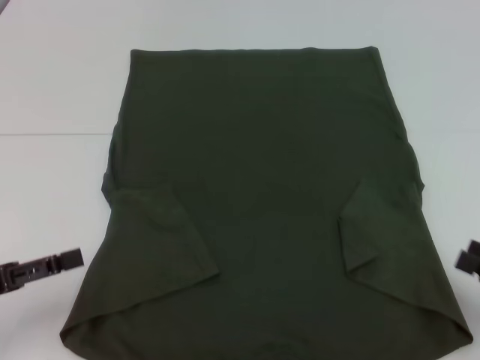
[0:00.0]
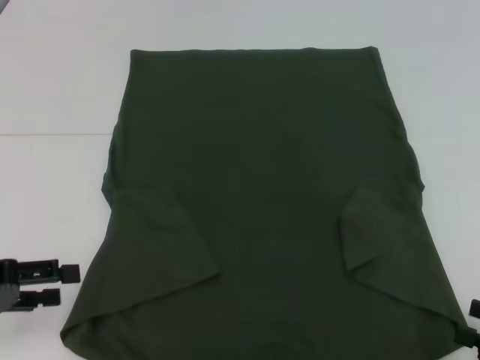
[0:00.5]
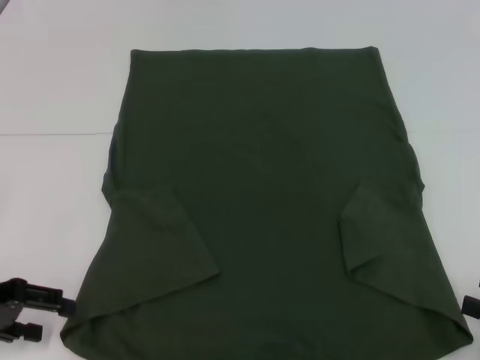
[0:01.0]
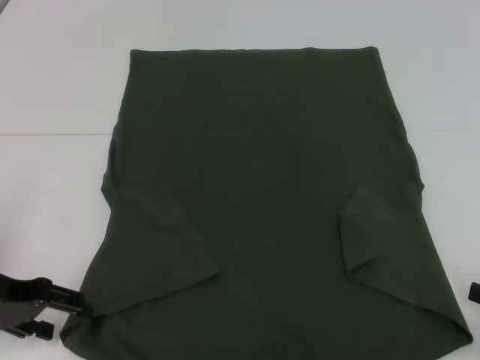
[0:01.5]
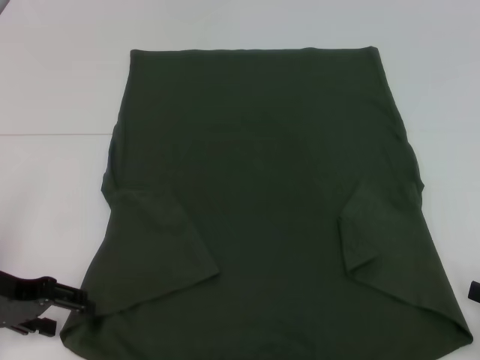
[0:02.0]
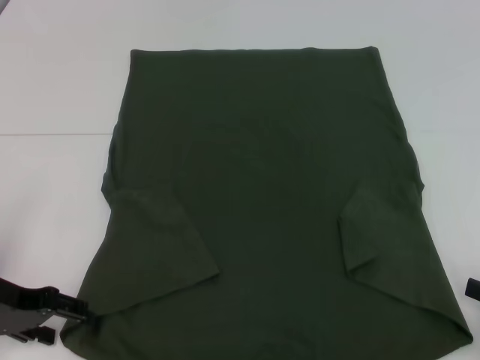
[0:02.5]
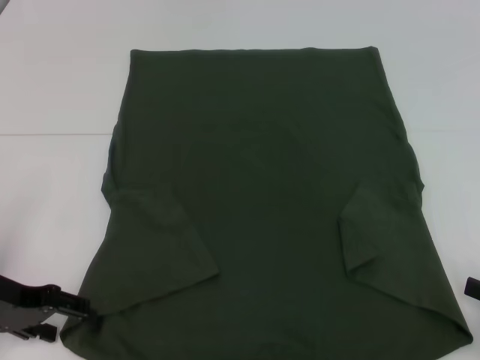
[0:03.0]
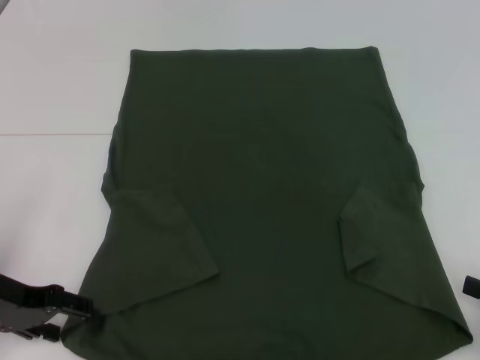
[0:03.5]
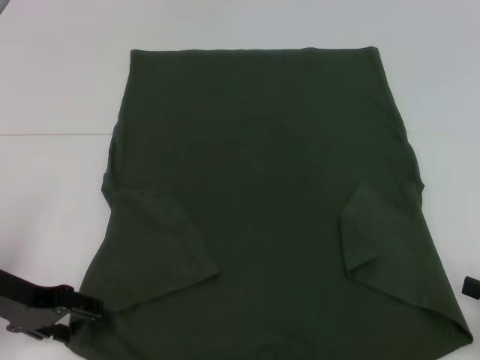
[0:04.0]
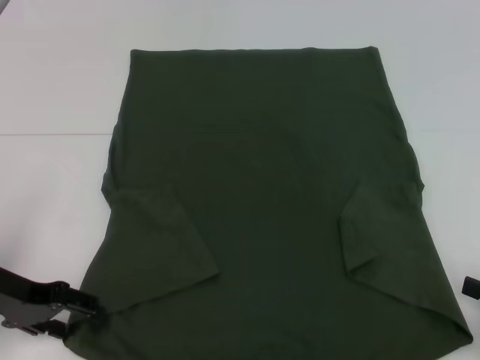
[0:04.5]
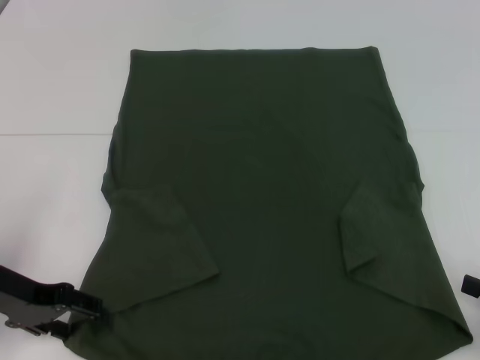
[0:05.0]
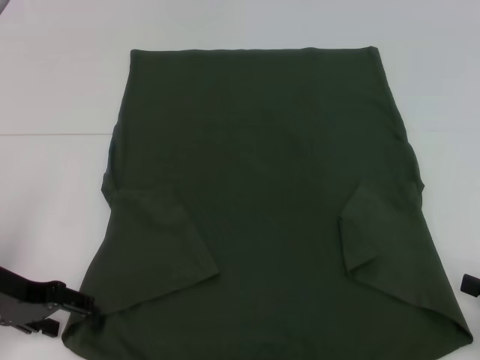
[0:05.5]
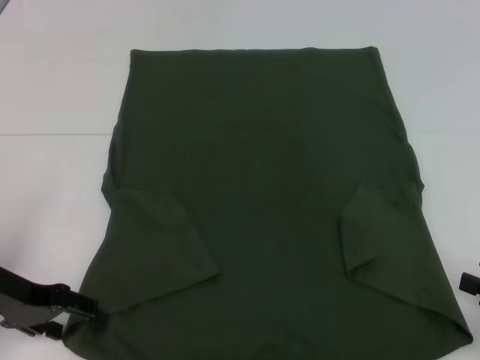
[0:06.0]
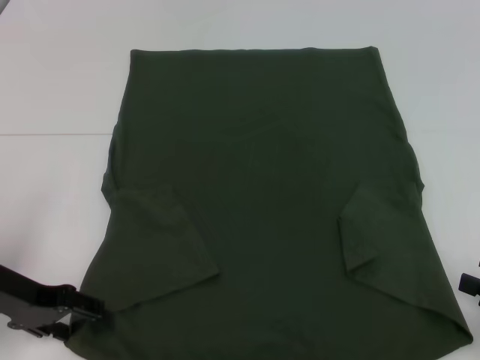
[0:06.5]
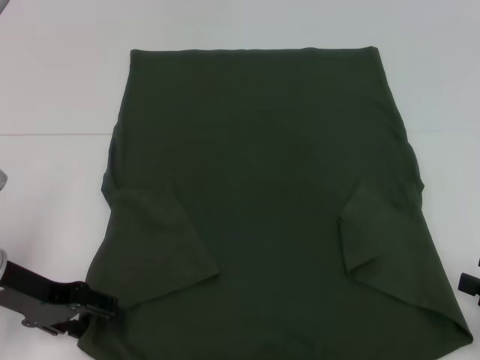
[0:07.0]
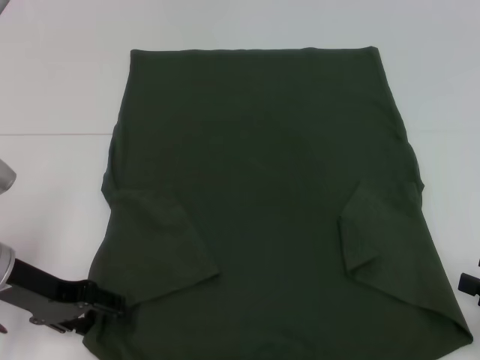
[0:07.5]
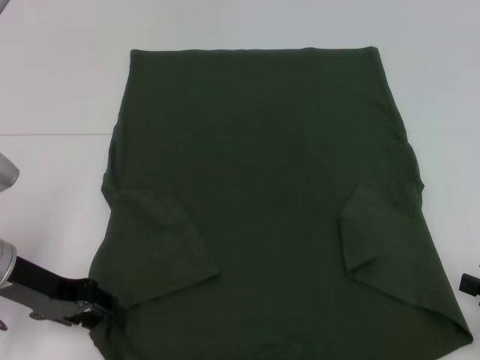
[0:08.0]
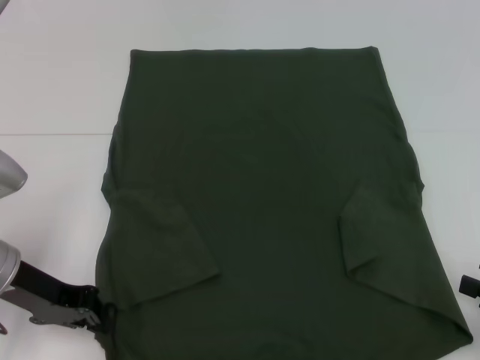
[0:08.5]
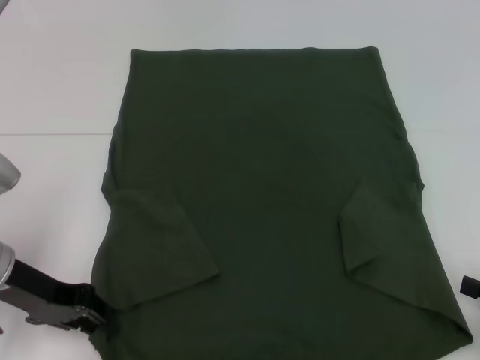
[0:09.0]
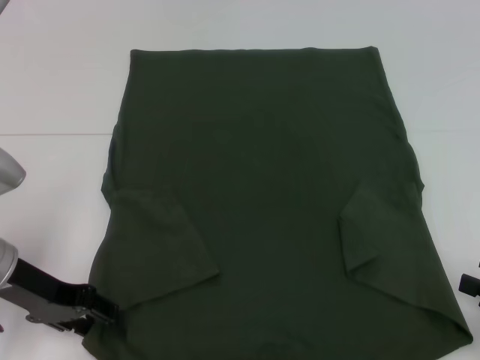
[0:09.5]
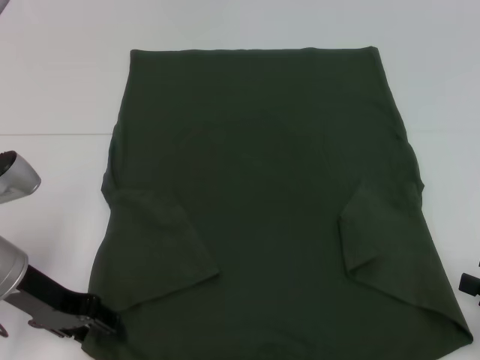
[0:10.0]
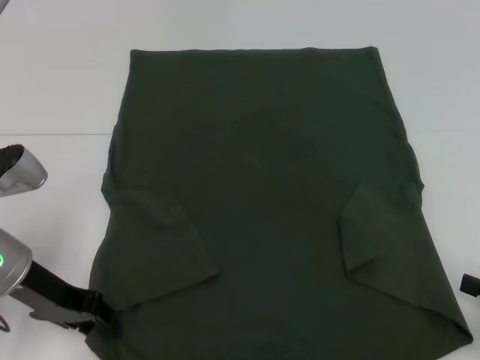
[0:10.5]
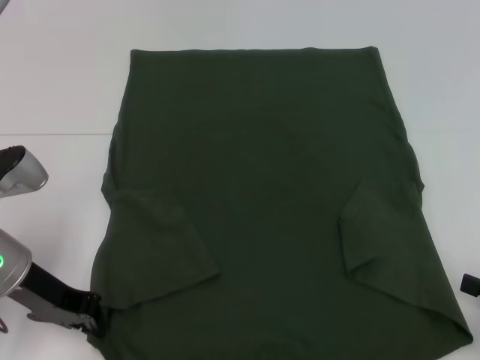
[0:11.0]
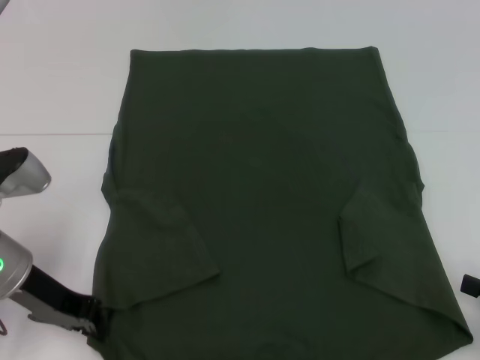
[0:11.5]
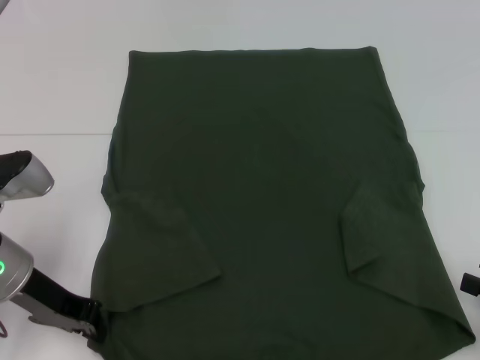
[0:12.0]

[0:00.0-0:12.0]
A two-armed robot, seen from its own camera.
0:00.0 to 0:02.0: The left gripper travels forward by roughly 5 cm.
0:02.0 to 0:04.0: There are only small adjustments of the grippers.
0:04.0 to 0:06.0: Both grippers stay about where they are.
0:06.0 to 0:08.0: The grippers move only a little.
0:08.0 to 0:10.0: The left gripper closes, then reopens.
0:10.0 to 0:12.0: The left gripper closes its fingers.

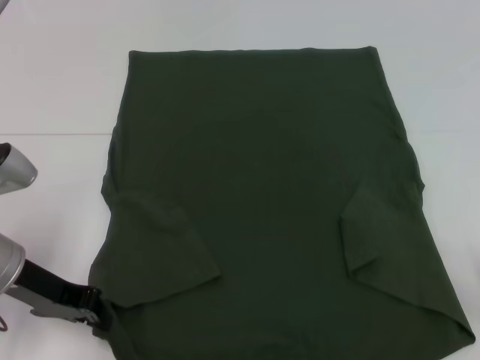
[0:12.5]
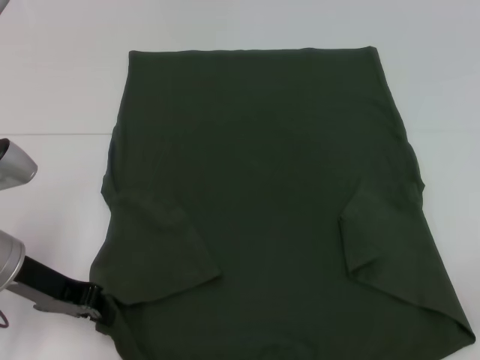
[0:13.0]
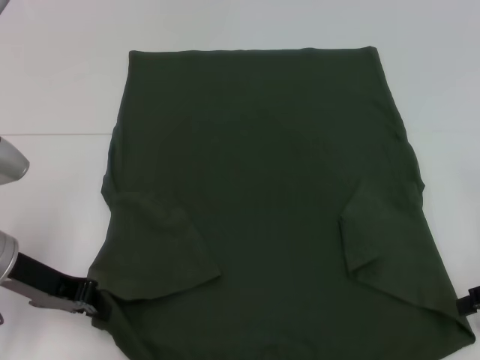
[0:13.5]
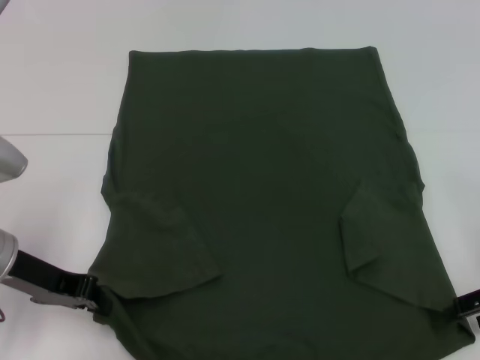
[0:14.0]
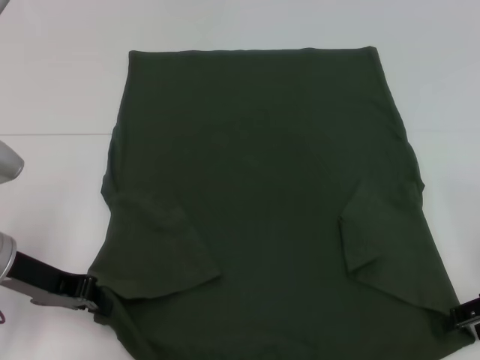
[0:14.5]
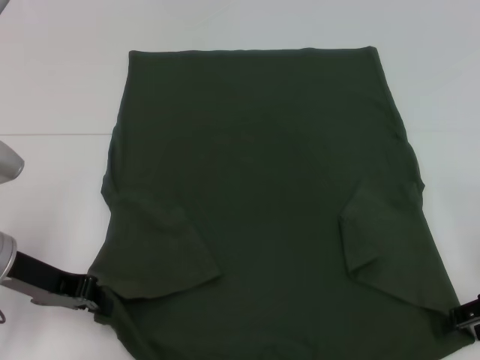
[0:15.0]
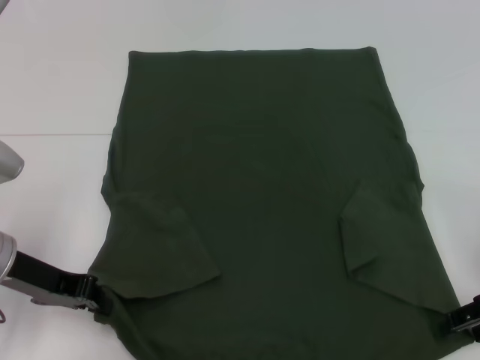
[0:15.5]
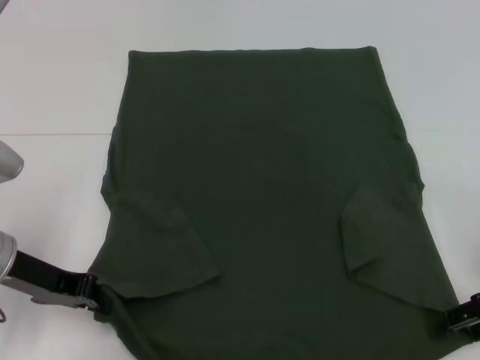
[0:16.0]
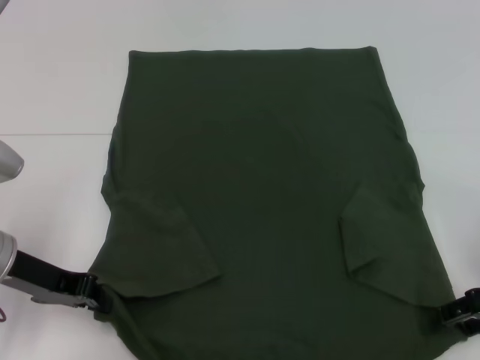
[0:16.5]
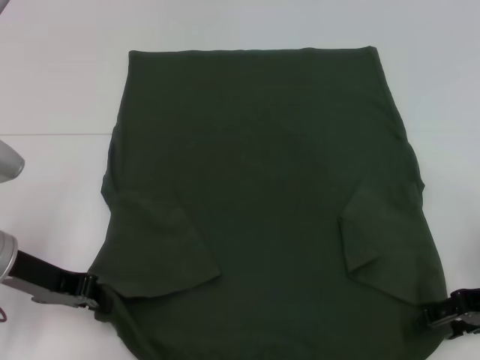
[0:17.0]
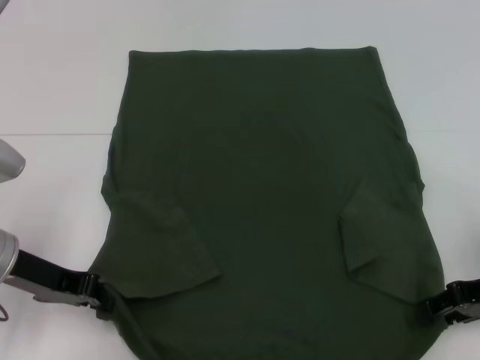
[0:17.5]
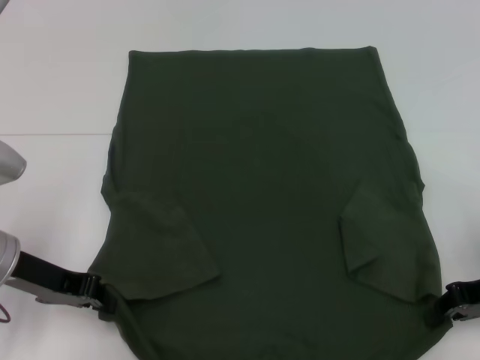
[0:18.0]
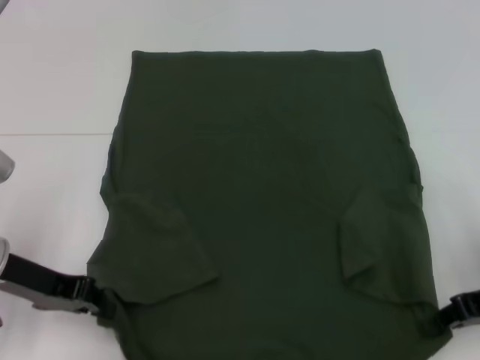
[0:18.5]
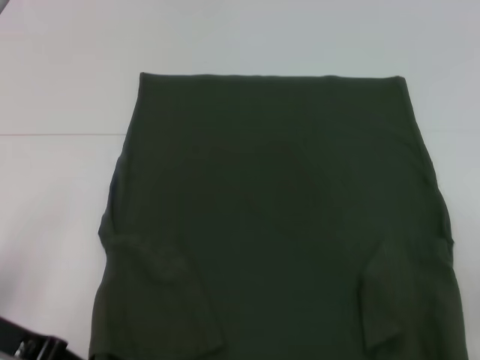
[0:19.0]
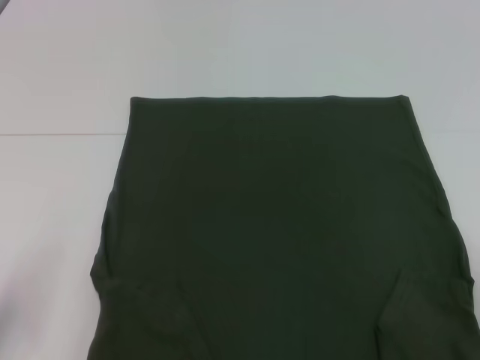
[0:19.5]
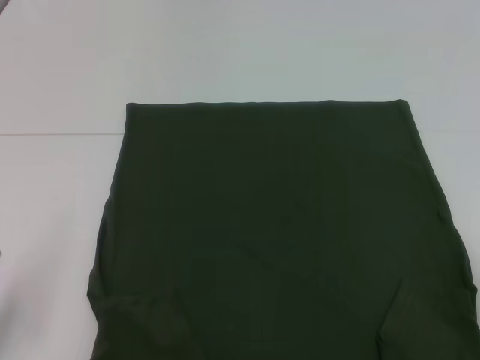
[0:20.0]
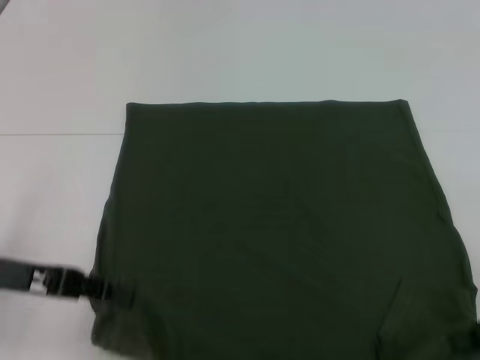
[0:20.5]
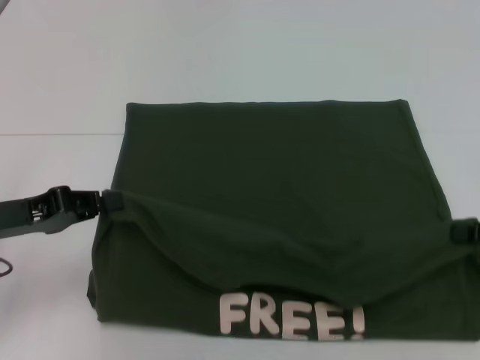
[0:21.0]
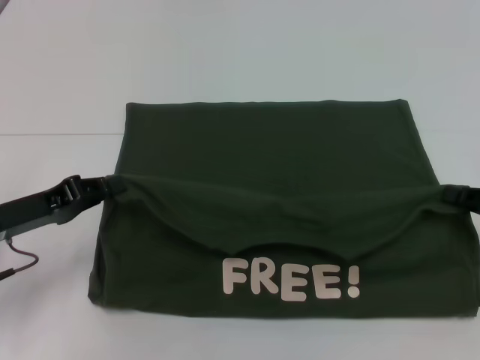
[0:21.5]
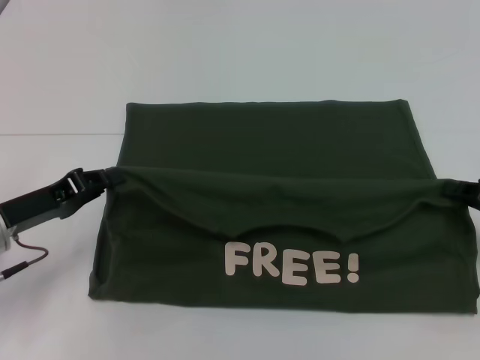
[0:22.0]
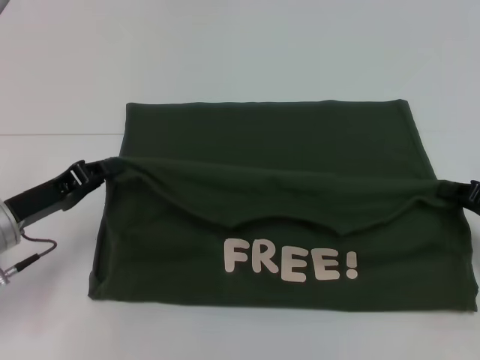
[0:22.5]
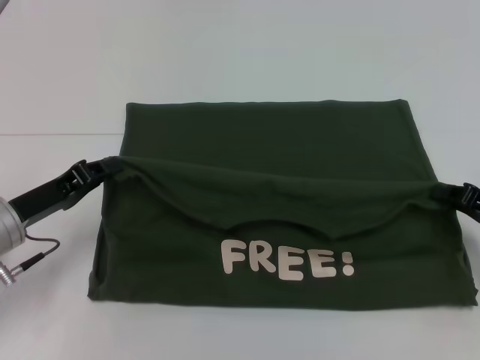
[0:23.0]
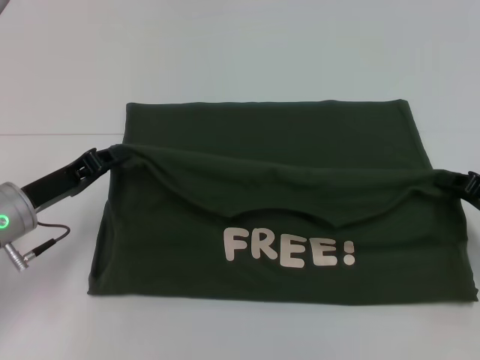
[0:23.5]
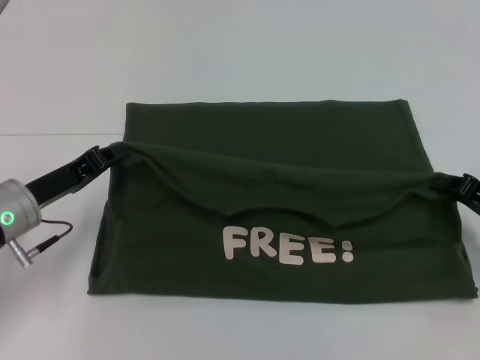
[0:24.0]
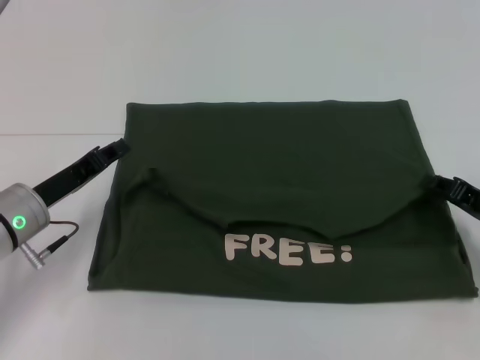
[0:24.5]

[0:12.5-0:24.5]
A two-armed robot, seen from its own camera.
Step, 0:13.5 to 0:18.0: Grab the bottom right corner with your right hand.
0:14.5 to 0:16.5: Neither gripper changes place.
0:16.5 to 0:18.5: The right gripper closes.
0:18.5 to 0:20.5: The right gripper moves approximately 5 cm.
0:20.5 to 0:22.5: The right gripper goes roughly 10 cm forward and downward; the left gripper heads downward, covering some 5 cm.
0:22.5 to 0:24.5: The grippers make only small movements.

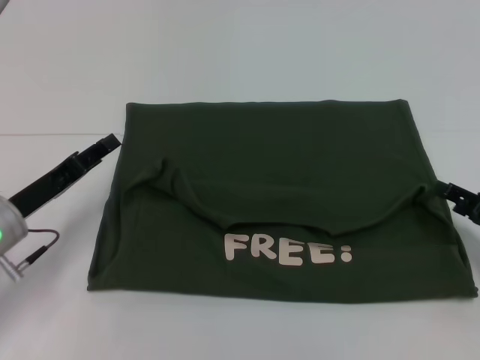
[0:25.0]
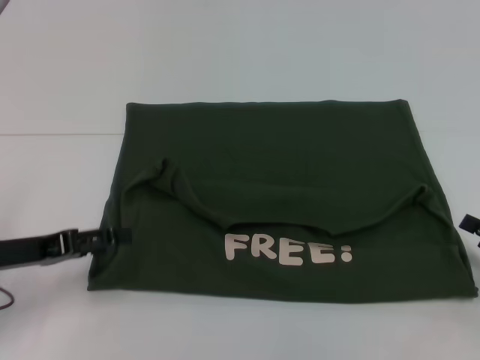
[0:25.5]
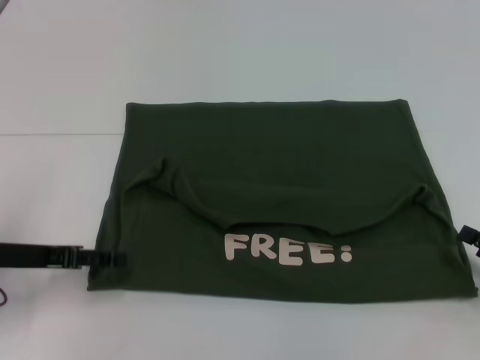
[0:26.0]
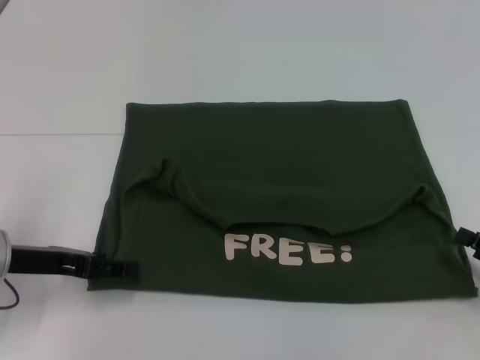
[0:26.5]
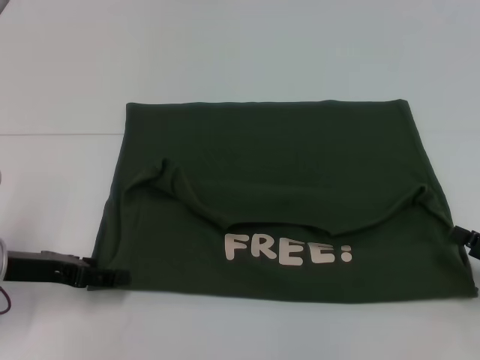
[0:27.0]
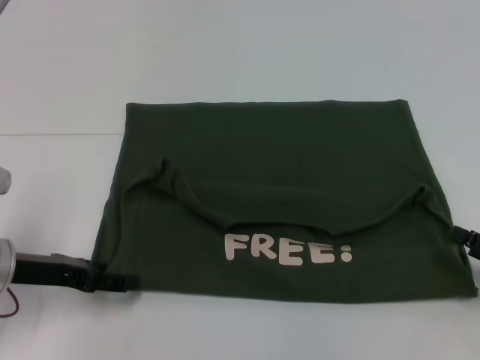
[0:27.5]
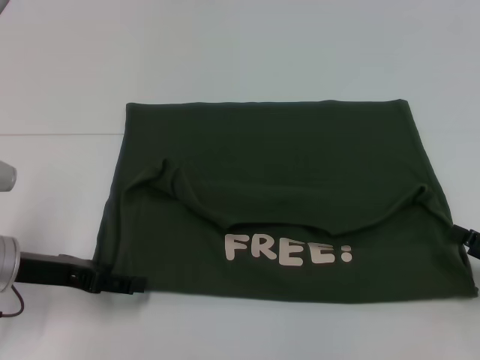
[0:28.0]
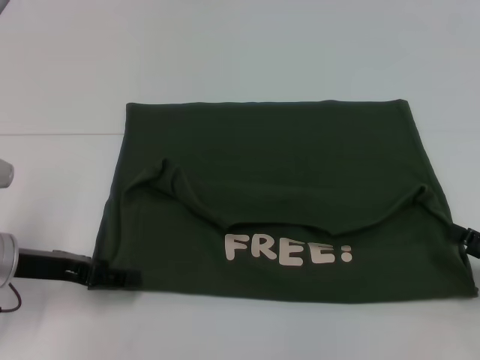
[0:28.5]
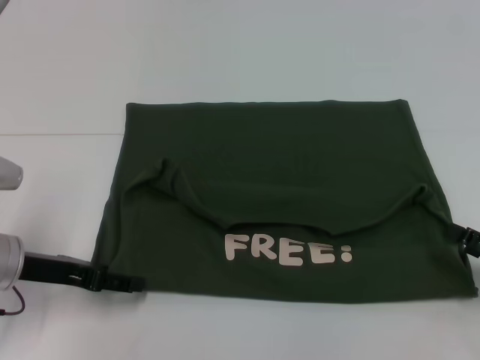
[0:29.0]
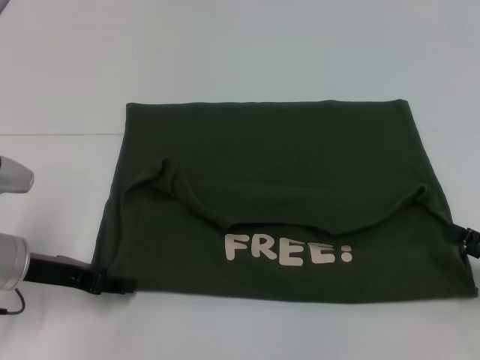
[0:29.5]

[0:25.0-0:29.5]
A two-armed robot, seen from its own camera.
0:25.0 to 0:27.0: The left gripper opens up. The right gripper goes about 5 cm backward.
0:27.0 to 0:29.5: The grippers move only a little.
